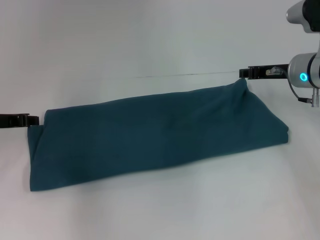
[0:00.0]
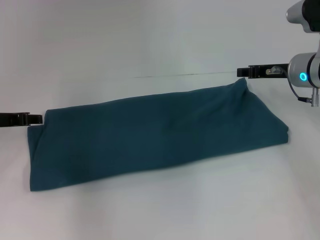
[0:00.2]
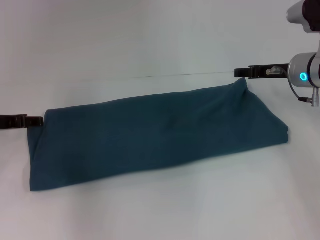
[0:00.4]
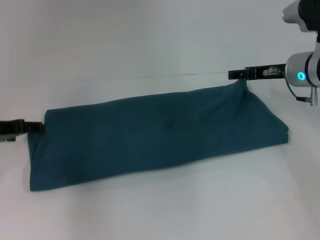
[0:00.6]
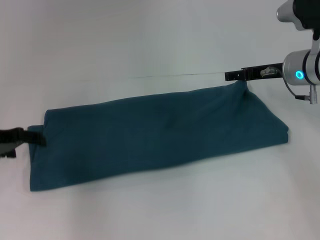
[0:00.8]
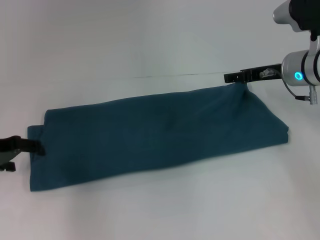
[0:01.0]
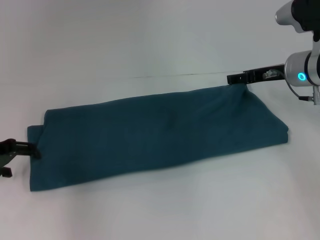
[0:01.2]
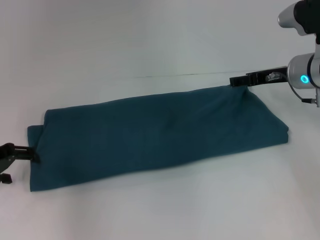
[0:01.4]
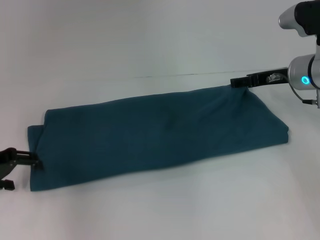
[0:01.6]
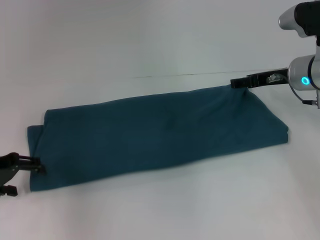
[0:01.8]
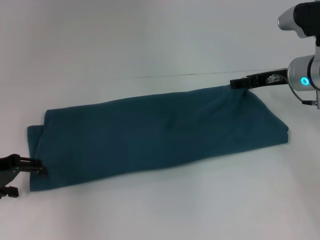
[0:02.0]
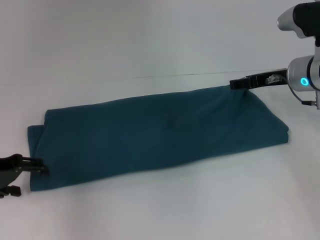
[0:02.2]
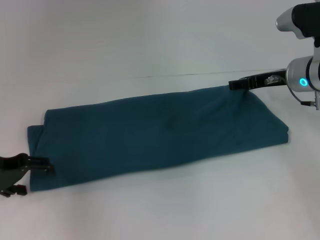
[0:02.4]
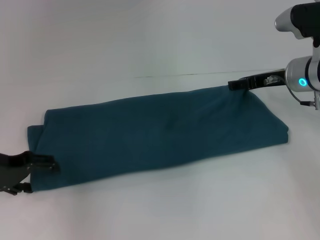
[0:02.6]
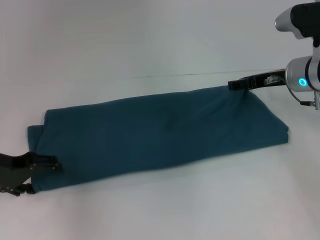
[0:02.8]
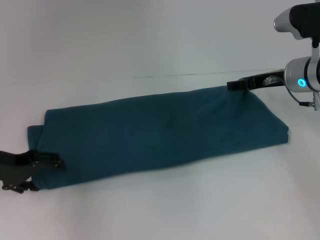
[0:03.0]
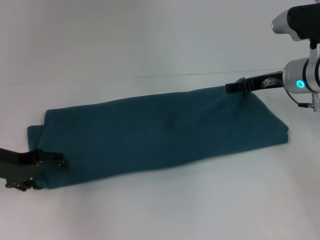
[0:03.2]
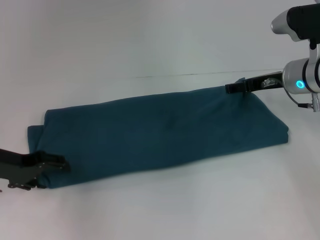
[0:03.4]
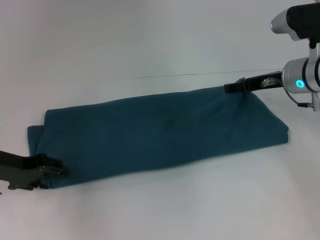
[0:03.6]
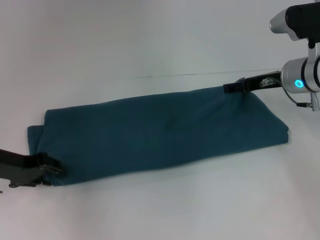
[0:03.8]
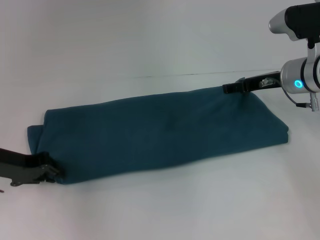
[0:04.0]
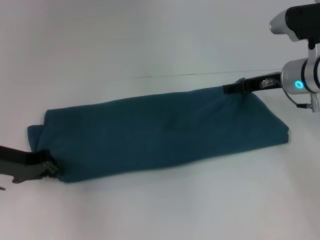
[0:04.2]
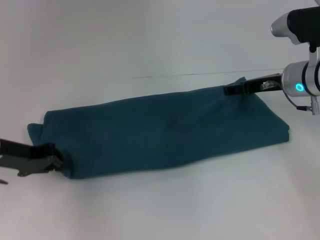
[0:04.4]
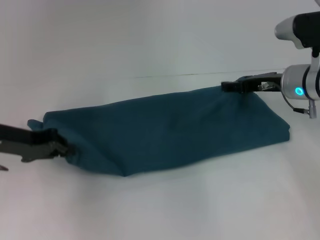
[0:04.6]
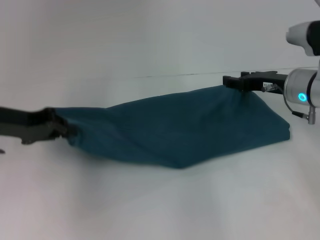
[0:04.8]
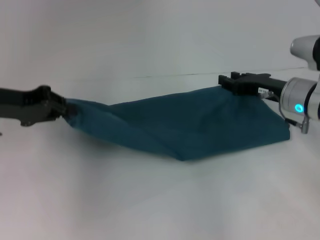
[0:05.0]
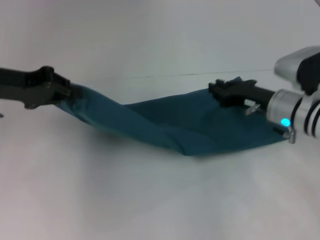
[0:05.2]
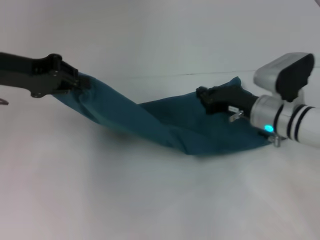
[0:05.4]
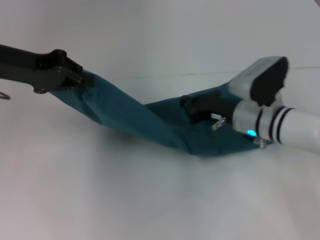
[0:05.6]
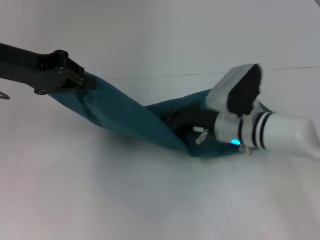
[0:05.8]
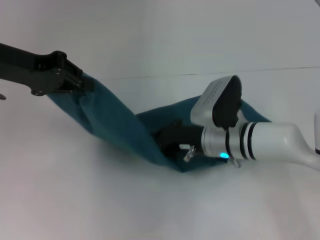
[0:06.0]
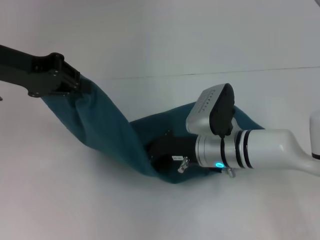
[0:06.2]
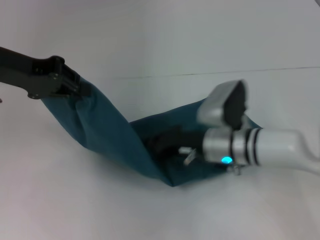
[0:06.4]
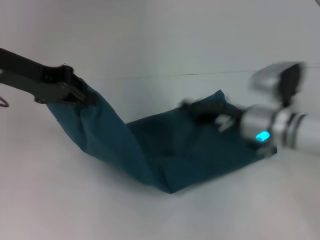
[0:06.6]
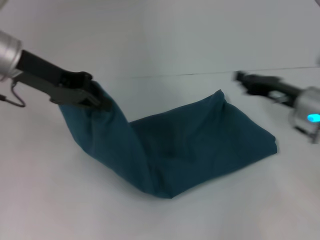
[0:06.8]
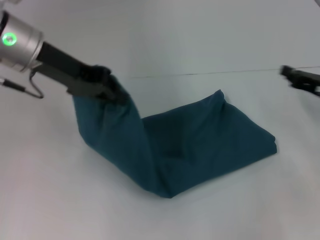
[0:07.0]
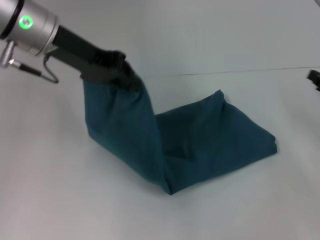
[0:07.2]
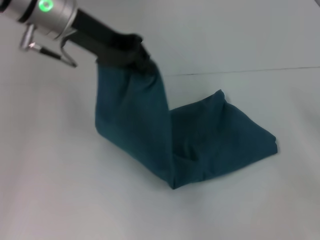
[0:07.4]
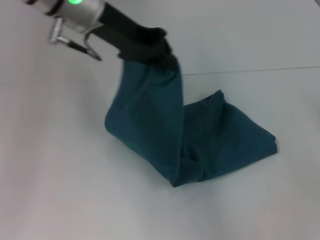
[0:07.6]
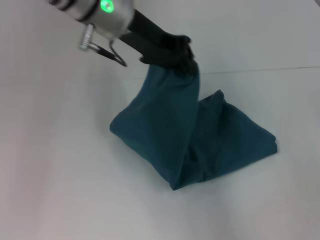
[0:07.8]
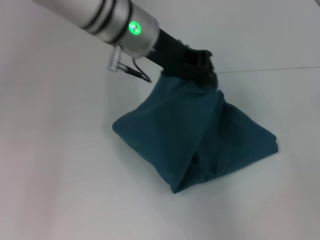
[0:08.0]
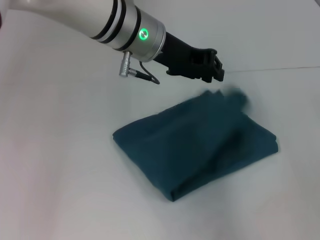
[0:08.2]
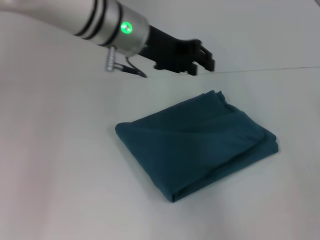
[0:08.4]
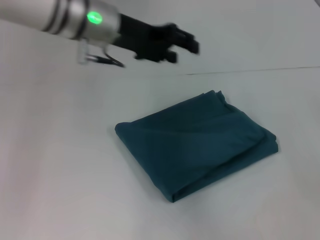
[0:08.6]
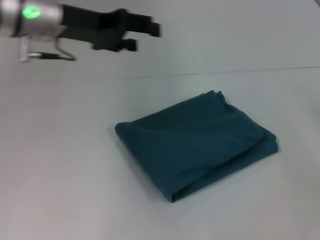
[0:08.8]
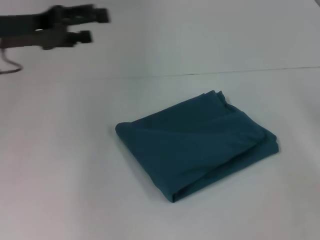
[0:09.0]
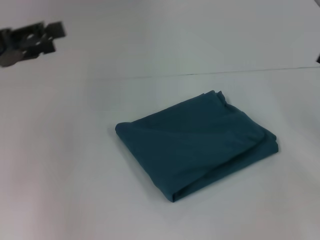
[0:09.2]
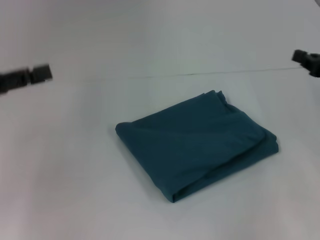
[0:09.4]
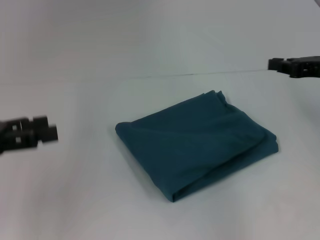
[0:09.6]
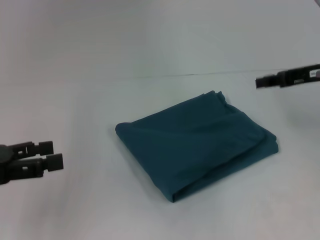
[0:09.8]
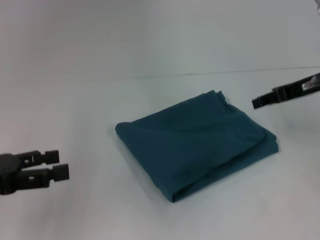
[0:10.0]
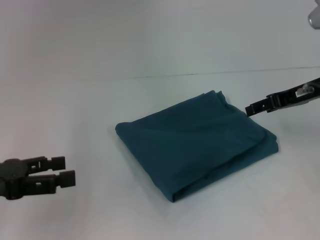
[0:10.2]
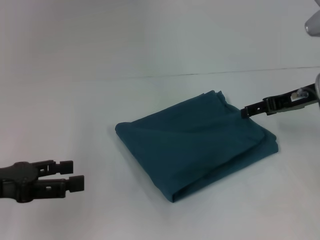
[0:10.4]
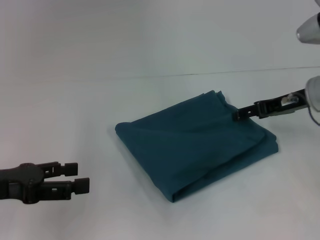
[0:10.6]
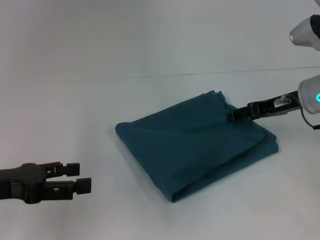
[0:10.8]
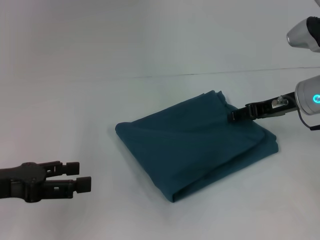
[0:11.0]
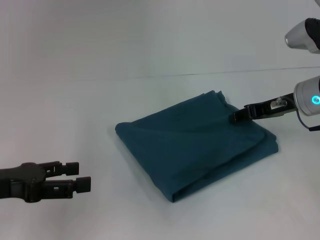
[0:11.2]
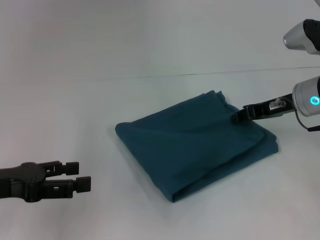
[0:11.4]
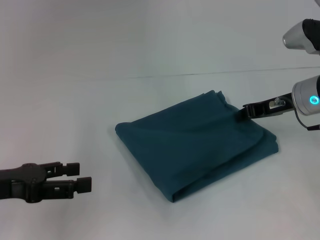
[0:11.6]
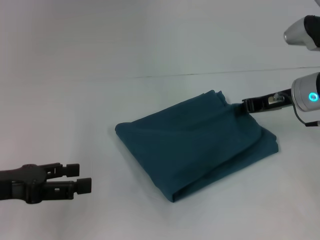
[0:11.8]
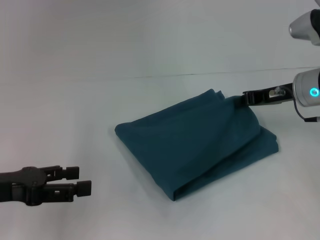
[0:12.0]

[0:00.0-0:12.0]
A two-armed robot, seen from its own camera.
Step, 0:00.0 to 0:08.2: Fold the clothes to the left.
0:00.0 to 0:01.6: The left gripper changes place by some 5 cm, and opens its fingers. Meanwhile the right gripper opens up.
0:01.6 to 0:03.0: The grippers make only small movements.
0:03.0 to 0:04.4: The left gripper closes.
0:04.4 to 0:06.0: The right gripper moves to the left, downward and backward, some 15 cm, and closes its fingers. Meanwhile the left gripper travels upward by approximately 15 cm.
0:06.0 to 0:07.6: The right gripper heads to the right, covering some 30 cm, while the left gripper heads to the right, covering about 15 cm.
0:07.6 to 0:09.0: The left gripper heads to the left, covering some 15 cm, and opens up.
0:09.0 to 0:10.4: The right gripper shifts approximately 15 cm to the left, forward and upward, and opens its fingers. Meanwhile the left gripper travels backward and downward by roughly 15 cm.
0:10.4 to 0:12.0: The right gripper closes its fingers.

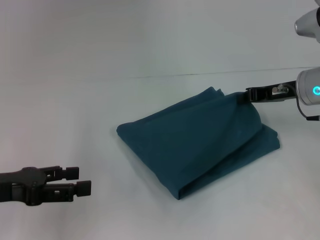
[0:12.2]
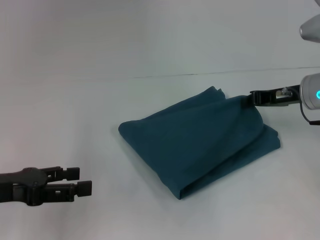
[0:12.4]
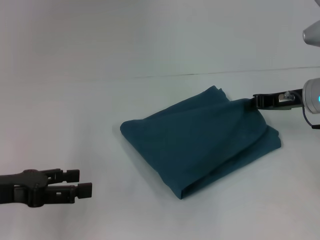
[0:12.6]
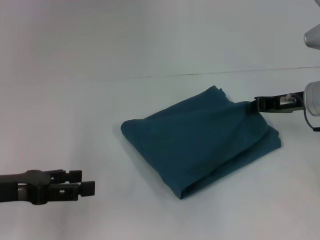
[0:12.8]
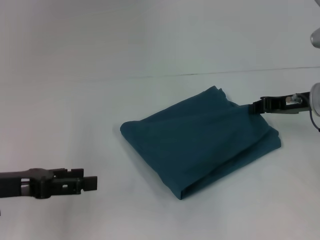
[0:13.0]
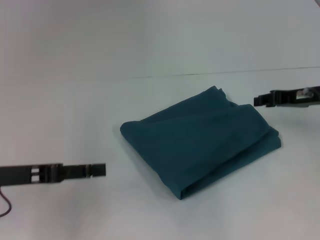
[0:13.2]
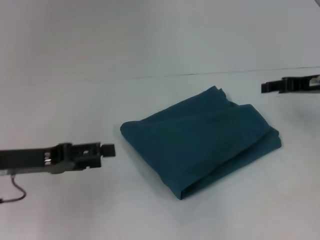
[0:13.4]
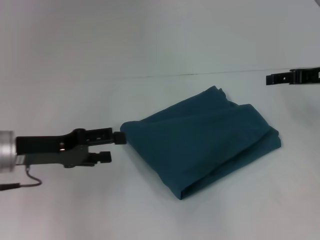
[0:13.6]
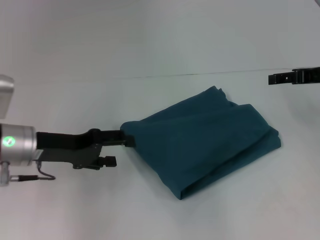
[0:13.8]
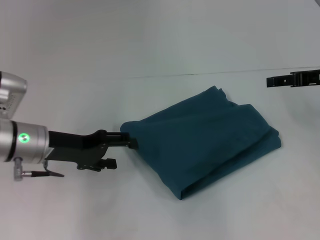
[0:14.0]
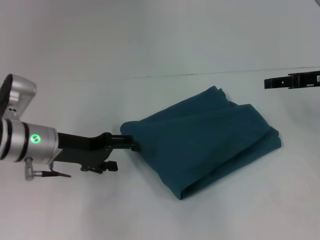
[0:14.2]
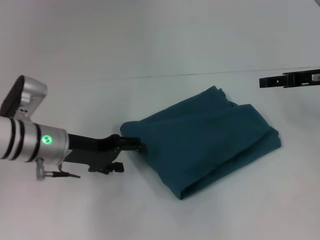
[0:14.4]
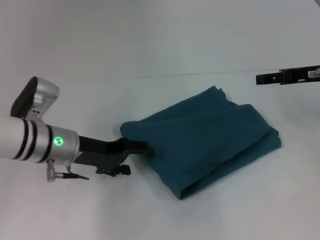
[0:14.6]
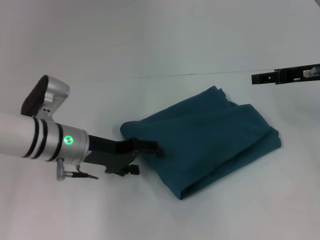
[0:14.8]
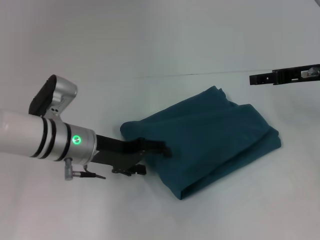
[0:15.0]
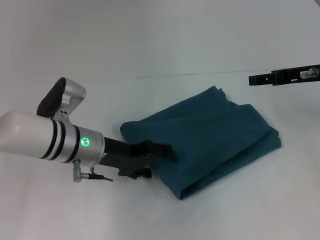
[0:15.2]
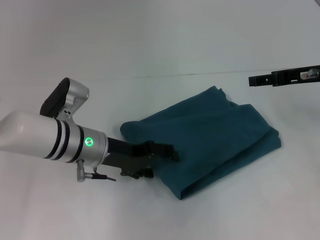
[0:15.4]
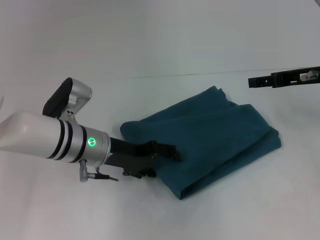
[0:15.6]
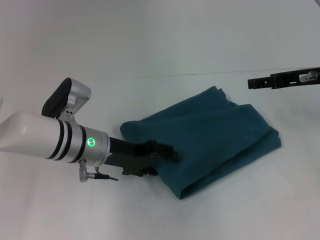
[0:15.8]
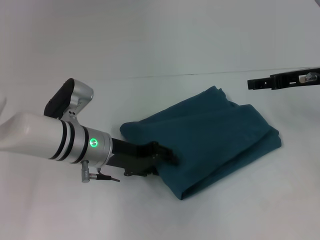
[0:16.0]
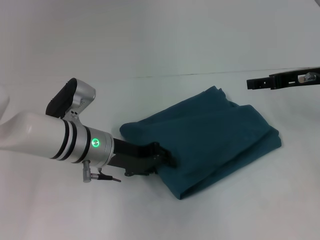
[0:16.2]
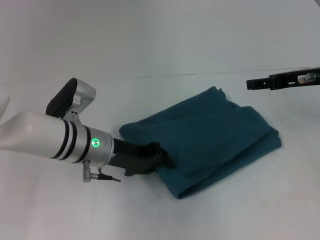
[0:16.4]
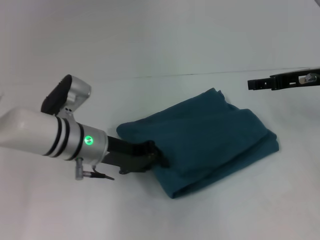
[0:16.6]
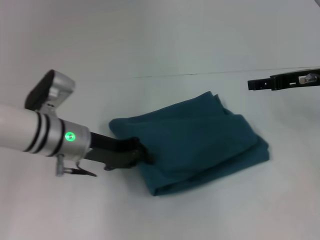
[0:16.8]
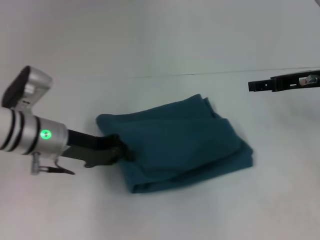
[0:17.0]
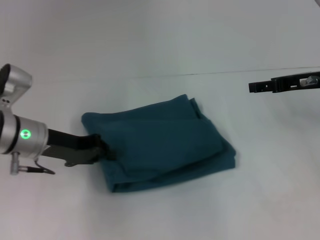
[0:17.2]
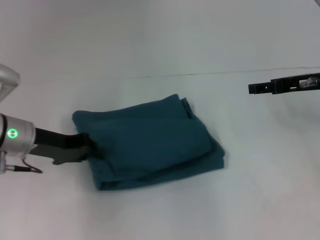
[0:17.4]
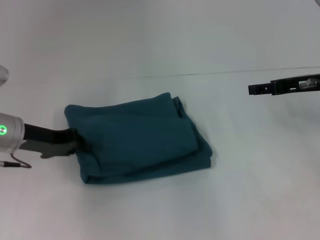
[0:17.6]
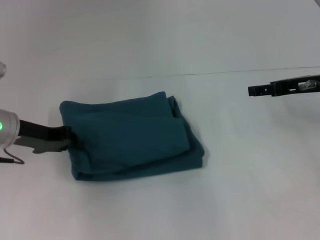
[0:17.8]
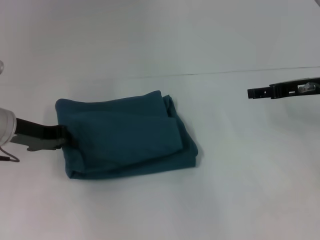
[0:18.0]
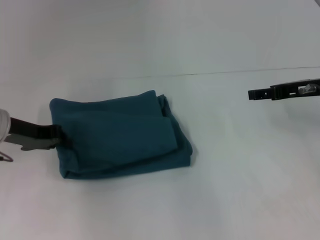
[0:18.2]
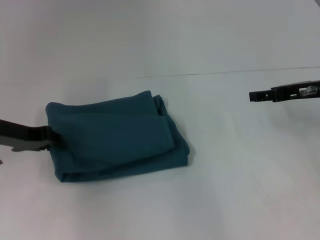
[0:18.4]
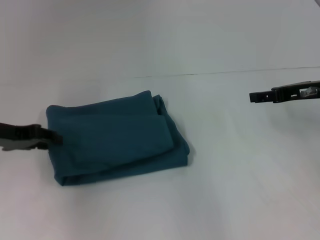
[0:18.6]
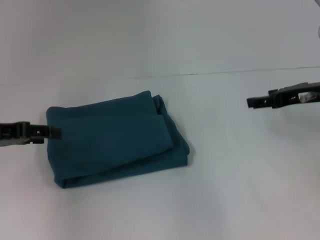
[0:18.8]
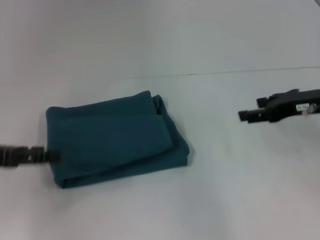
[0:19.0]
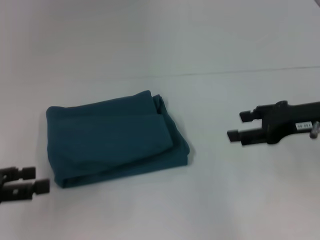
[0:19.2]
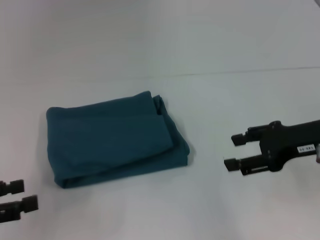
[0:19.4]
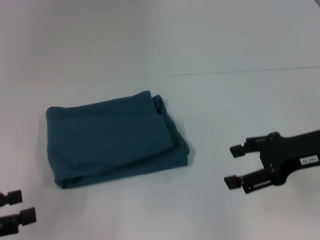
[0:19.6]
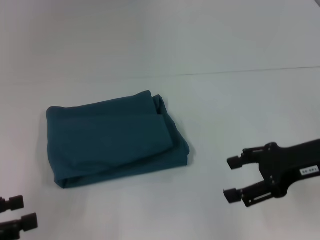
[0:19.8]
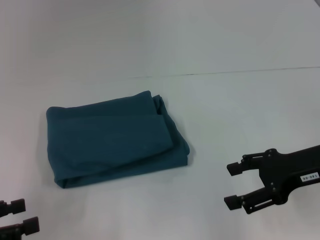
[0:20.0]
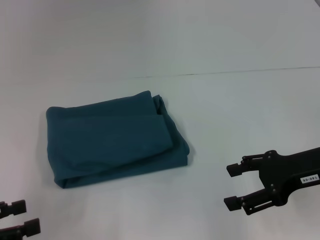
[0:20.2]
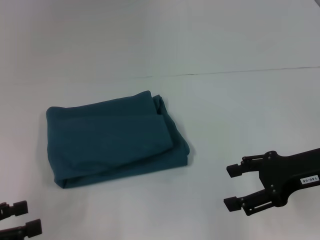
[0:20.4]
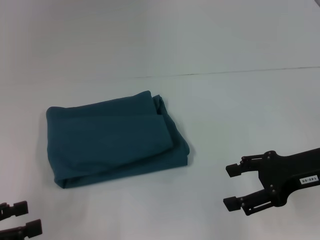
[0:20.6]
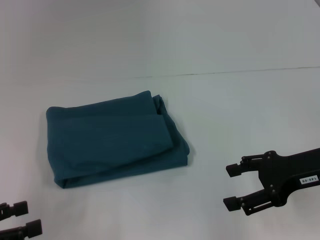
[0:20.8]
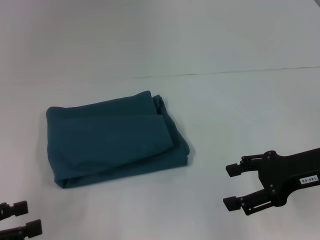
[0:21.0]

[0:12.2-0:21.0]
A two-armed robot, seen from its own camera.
0:12.2 to 0:13.6: The right gripper moves approximately 5 cm, and opens its fingers, while the left gripper heads forward, covering roughly 5 cm.
0:13.6 to 0:15.2: The left gripper moves to the right, about 10 cm.
0:15.2 to 0:16.6: The left gripper closes its fingers.
0:16.6 to 0:18.0: The left gripper moves to the left, some 15 cm.
0:18.0 to 0:19.6: The right gripper goes about 10 cm backward. The left gripper moves backward and to the left, approximately 20 cm, and opens.
0:19.6 to 0:21.0: The grippers make only small movements.

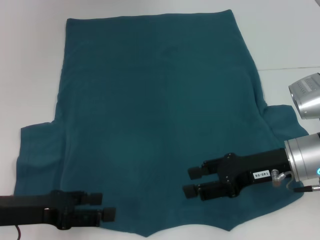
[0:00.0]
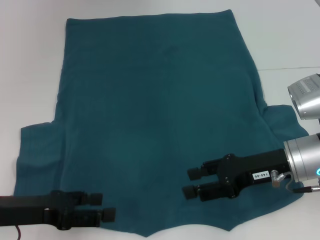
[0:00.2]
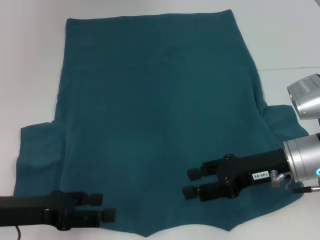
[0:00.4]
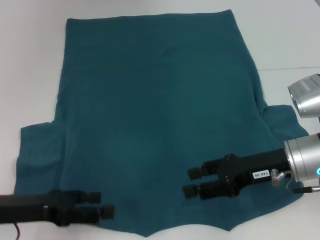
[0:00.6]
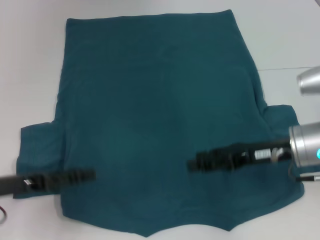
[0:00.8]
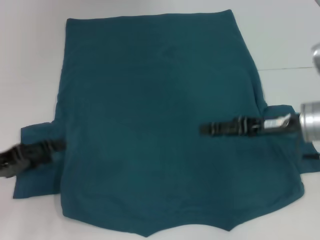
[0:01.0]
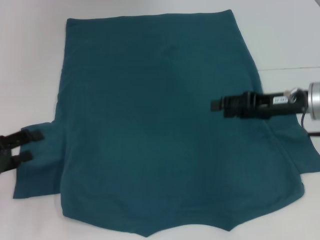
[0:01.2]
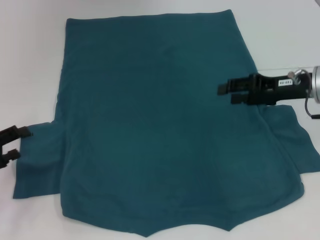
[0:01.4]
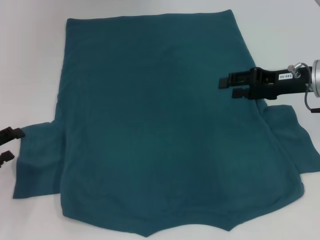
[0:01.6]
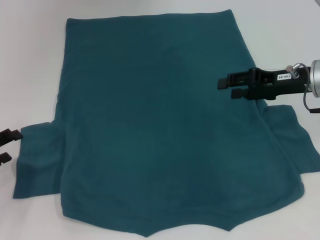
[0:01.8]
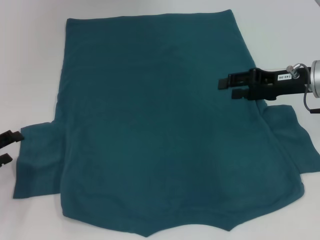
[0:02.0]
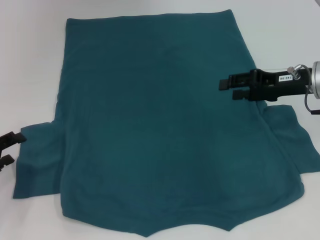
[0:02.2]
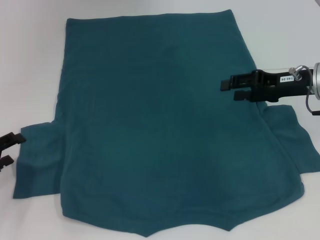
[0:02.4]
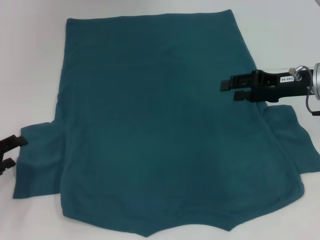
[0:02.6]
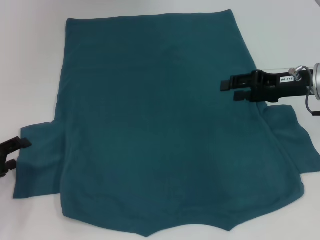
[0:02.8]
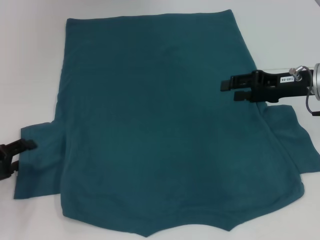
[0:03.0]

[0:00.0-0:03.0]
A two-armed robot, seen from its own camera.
0:00.0 to 0:01.6: The left gripper moves to the left, some 10 cm. The right gripper heads forward, to the right and upward, covering roughly 10 cm.
0:01.6 to 0:03.0: There are only small adjustments of the grippers.
